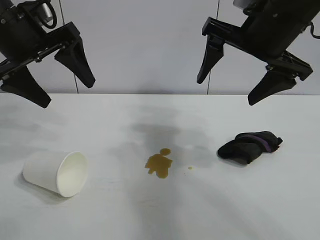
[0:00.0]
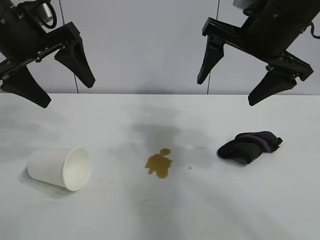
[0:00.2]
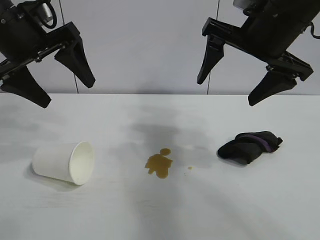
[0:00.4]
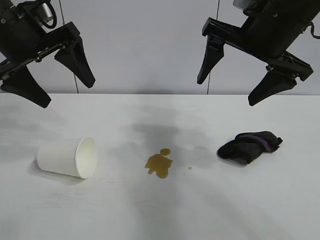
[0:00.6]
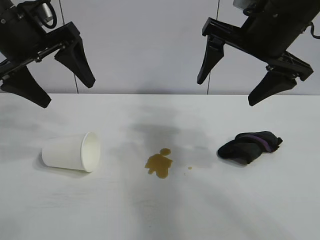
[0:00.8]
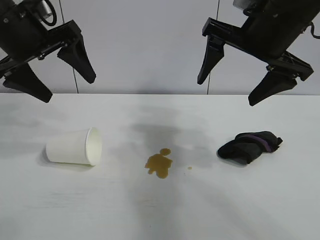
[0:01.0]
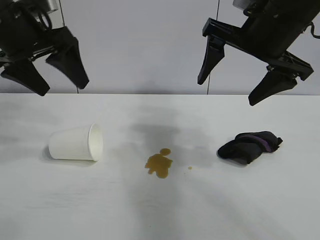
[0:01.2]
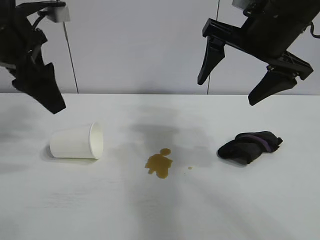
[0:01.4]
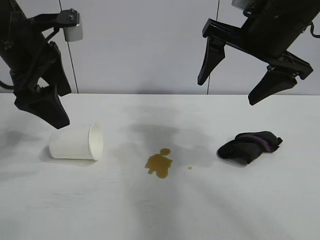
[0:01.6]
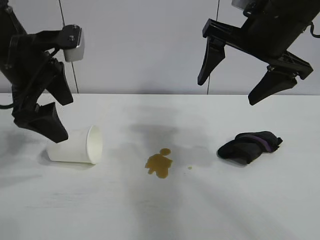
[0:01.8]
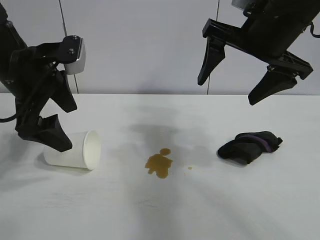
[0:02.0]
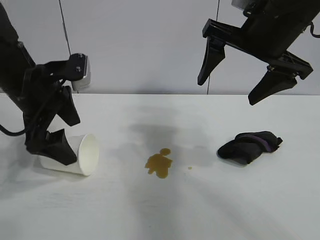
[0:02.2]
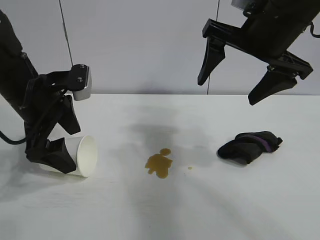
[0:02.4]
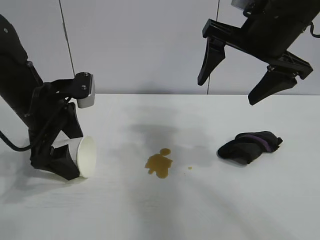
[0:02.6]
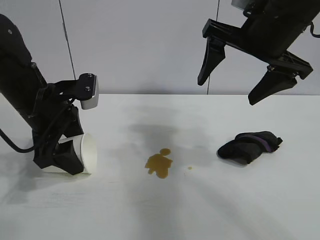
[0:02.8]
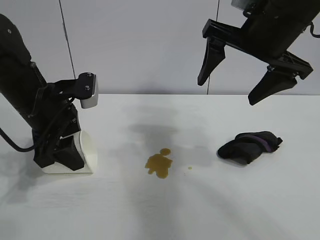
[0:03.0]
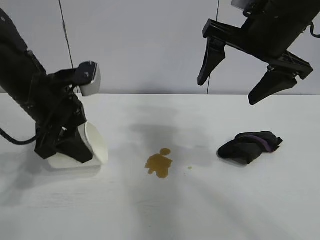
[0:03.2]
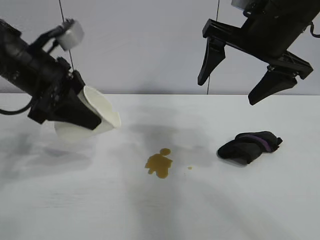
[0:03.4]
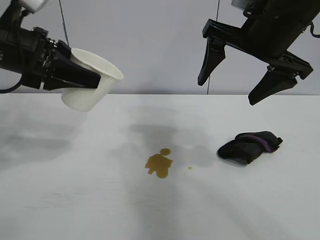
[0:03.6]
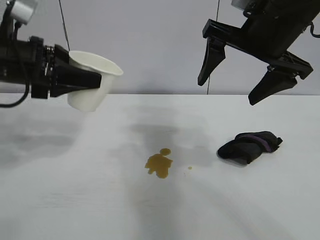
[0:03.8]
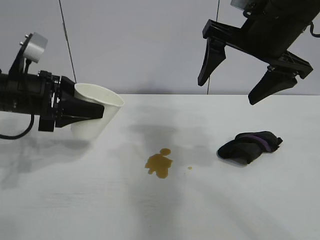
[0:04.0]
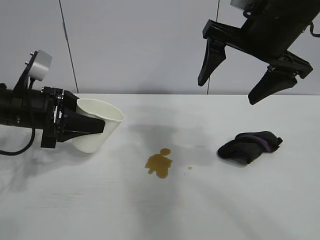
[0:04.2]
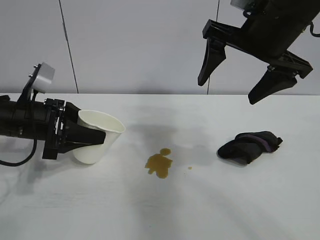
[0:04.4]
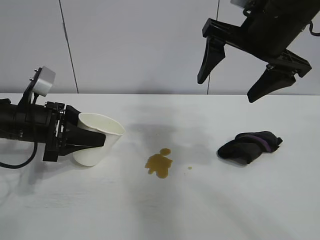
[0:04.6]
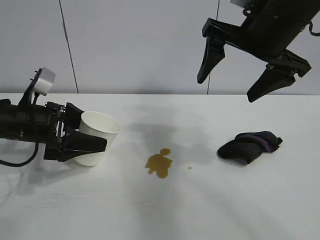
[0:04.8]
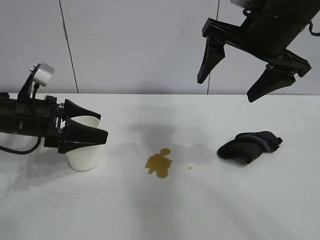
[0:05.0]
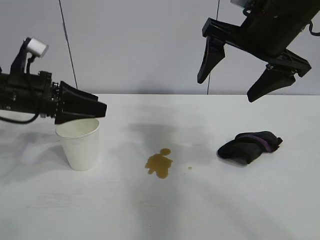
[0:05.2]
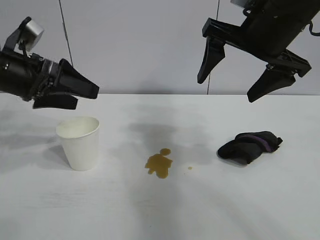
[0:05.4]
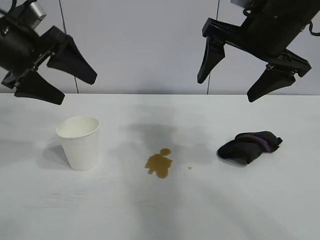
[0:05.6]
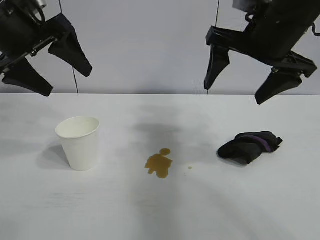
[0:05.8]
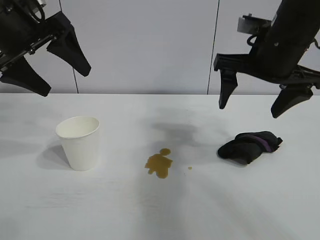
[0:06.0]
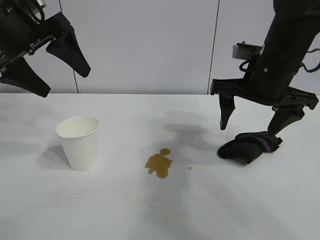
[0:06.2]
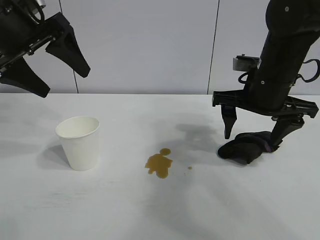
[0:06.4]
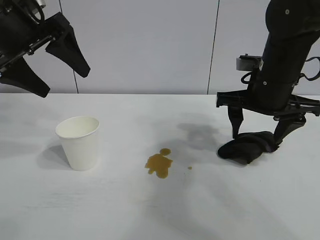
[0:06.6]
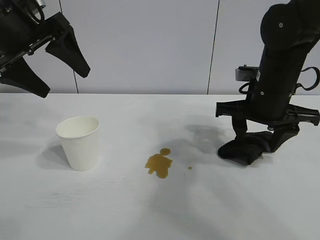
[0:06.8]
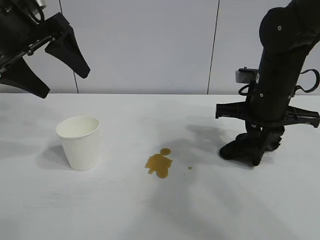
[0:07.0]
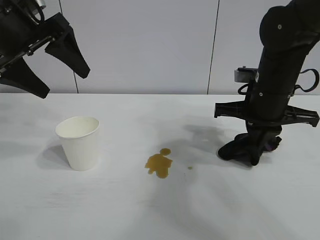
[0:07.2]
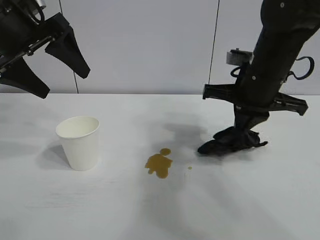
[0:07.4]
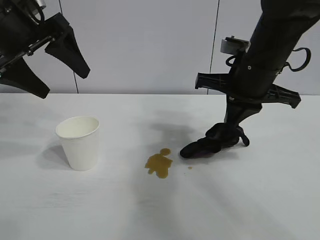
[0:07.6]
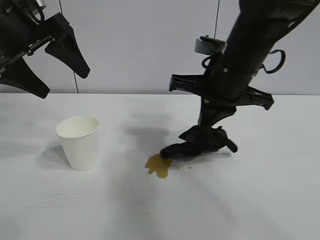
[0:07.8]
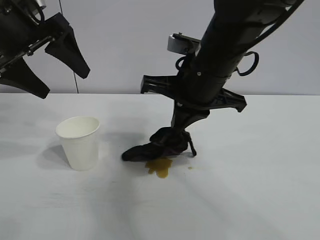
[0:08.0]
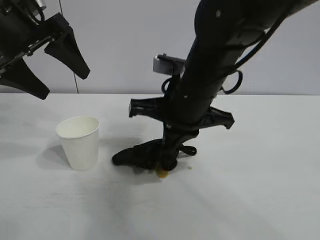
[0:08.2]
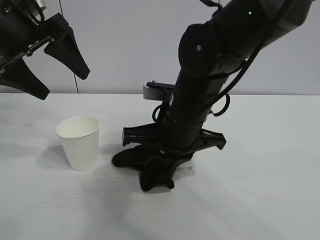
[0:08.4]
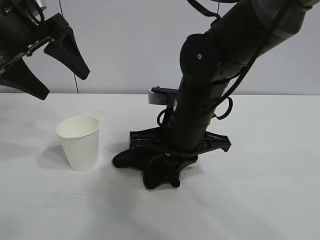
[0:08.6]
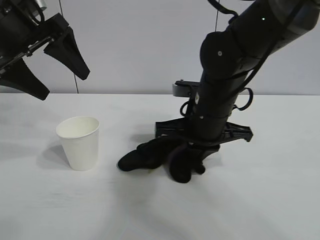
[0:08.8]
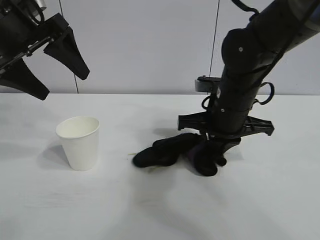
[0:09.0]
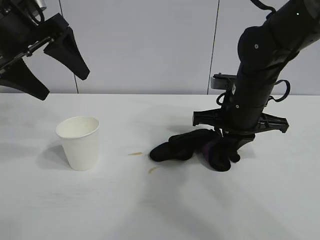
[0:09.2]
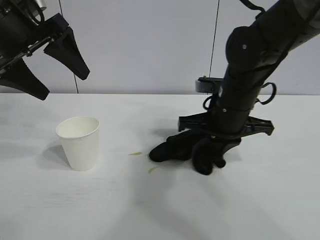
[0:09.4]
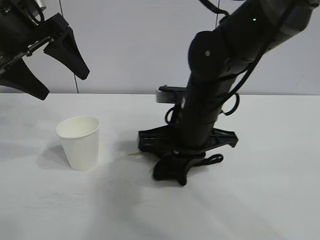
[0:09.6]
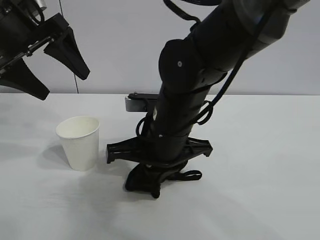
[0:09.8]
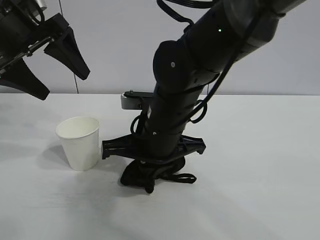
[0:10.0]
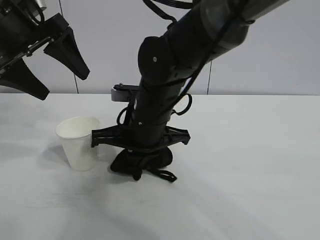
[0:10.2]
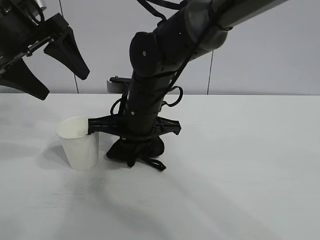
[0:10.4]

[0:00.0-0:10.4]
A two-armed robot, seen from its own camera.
Task of the whole recording: the left gripper pick up the fallen cup and place it upright, the right gripper grasp the black rag and wipe the stain on the table, the right gripper put the black rag back in its original position.
Step, 0:01.0 to 0:03.0: Grasp the paper cup with left gripper.
Step, 0:03.2 to 0:05.0: Stand the paper cup upright with left gripper.
Step, 0:05.2 to 0:07.0: Grasp the rag with right gripper.
